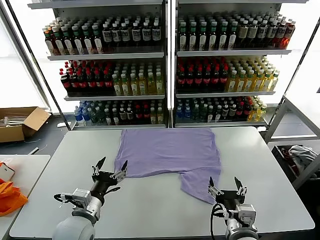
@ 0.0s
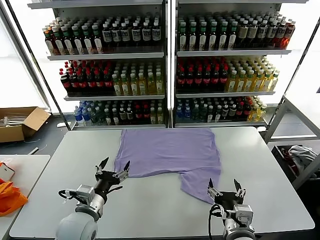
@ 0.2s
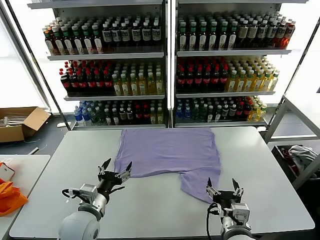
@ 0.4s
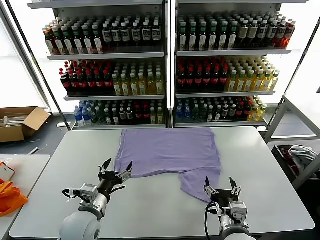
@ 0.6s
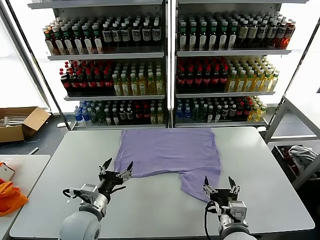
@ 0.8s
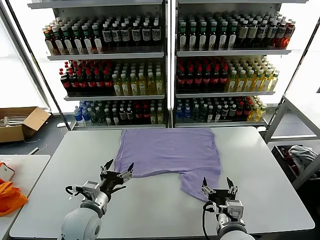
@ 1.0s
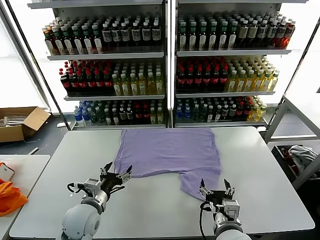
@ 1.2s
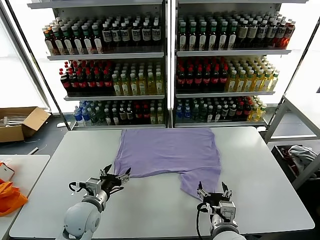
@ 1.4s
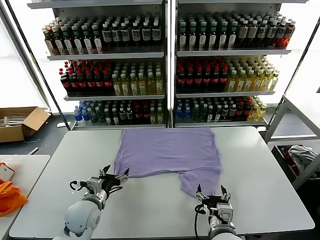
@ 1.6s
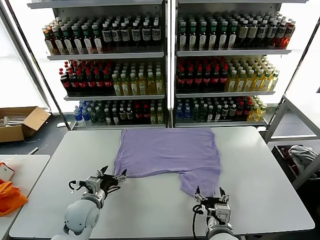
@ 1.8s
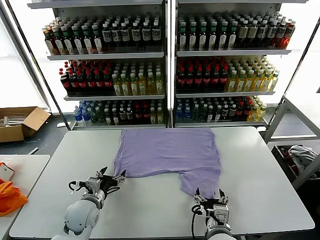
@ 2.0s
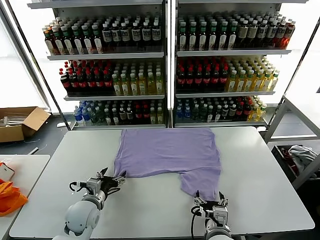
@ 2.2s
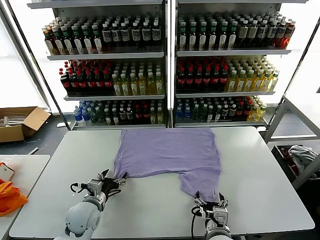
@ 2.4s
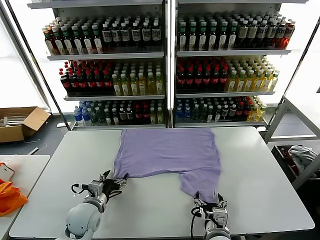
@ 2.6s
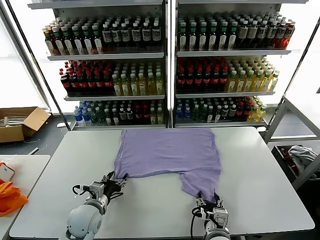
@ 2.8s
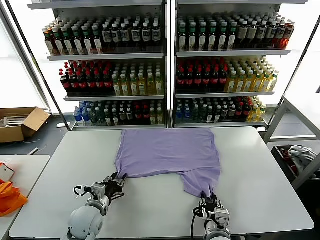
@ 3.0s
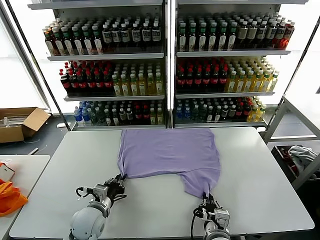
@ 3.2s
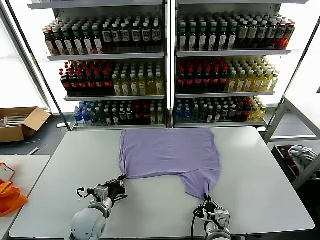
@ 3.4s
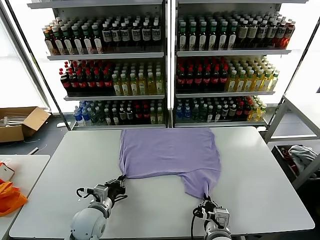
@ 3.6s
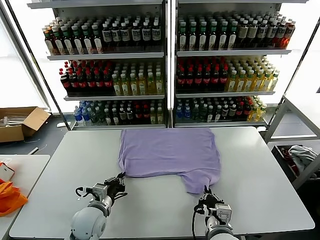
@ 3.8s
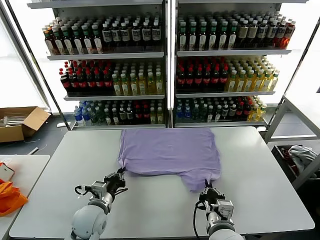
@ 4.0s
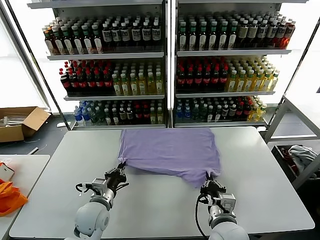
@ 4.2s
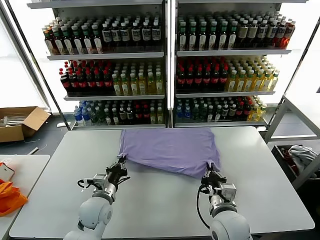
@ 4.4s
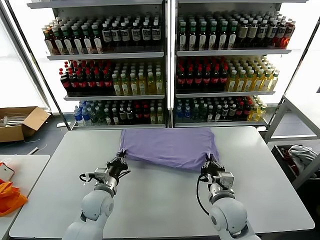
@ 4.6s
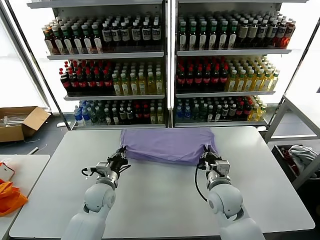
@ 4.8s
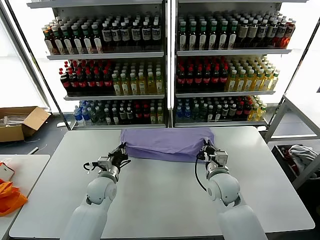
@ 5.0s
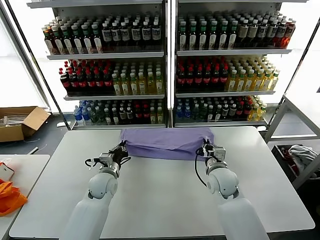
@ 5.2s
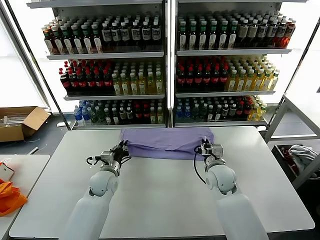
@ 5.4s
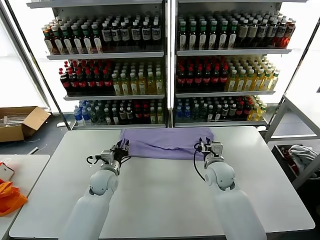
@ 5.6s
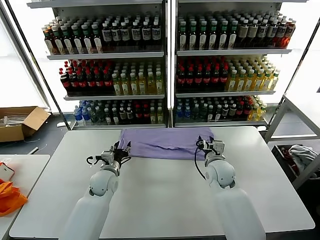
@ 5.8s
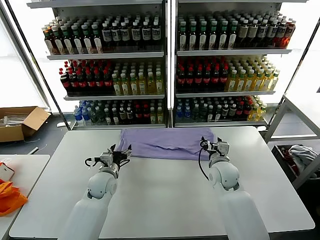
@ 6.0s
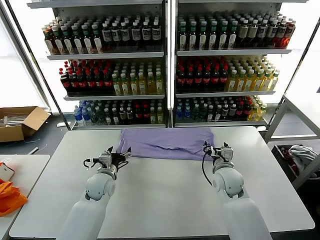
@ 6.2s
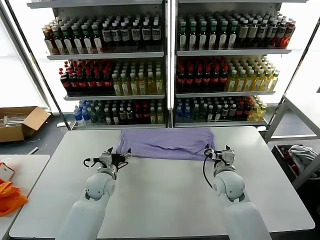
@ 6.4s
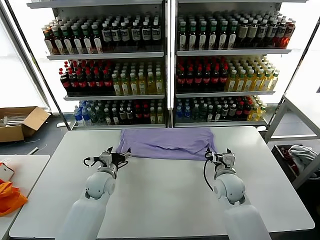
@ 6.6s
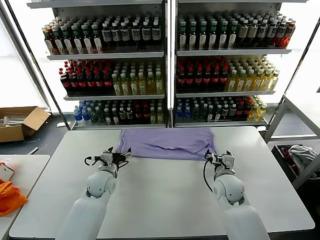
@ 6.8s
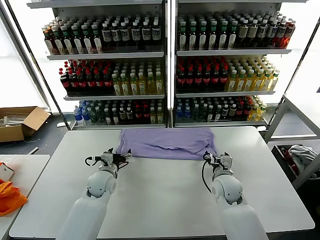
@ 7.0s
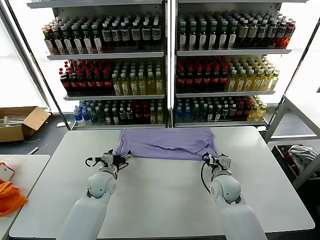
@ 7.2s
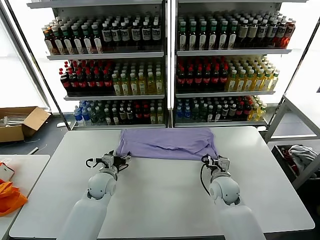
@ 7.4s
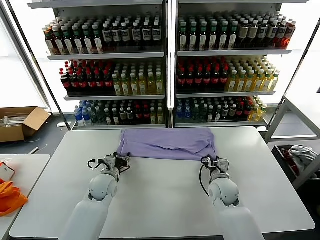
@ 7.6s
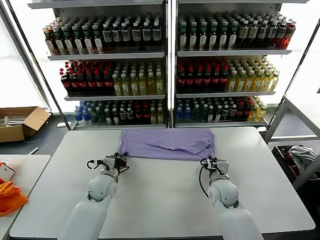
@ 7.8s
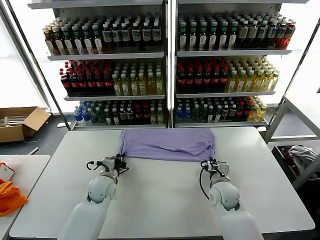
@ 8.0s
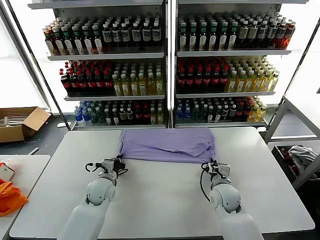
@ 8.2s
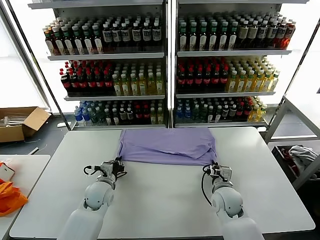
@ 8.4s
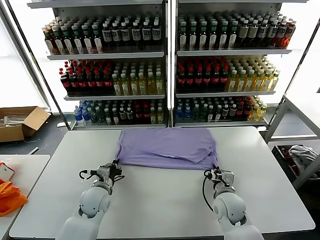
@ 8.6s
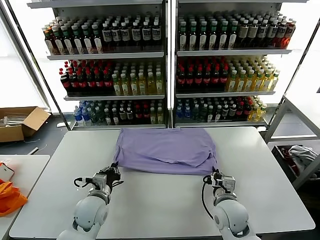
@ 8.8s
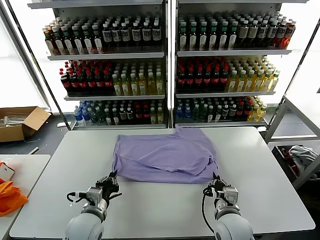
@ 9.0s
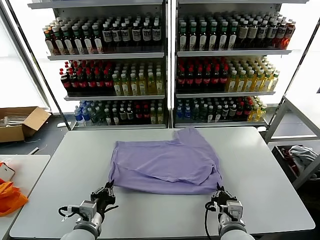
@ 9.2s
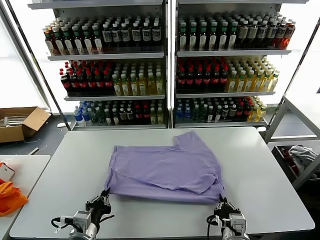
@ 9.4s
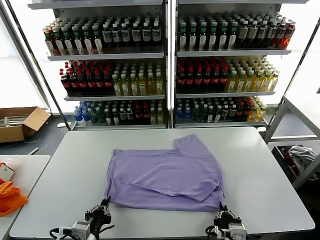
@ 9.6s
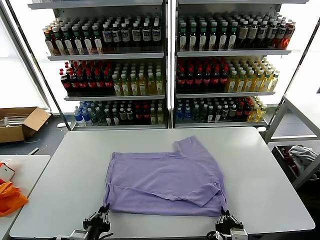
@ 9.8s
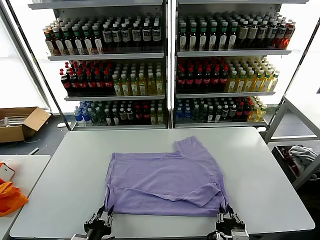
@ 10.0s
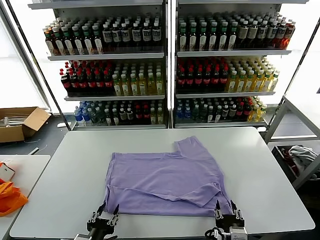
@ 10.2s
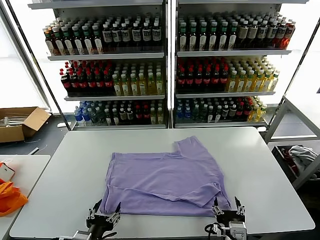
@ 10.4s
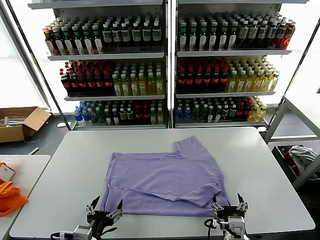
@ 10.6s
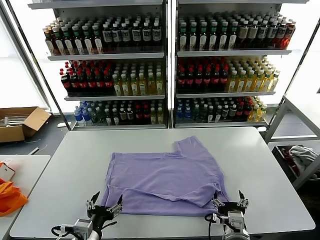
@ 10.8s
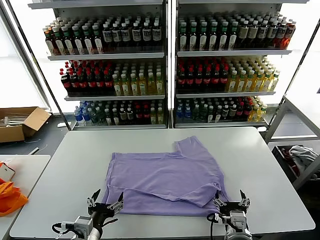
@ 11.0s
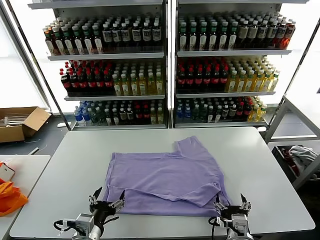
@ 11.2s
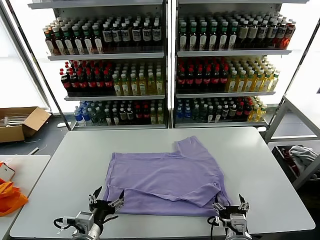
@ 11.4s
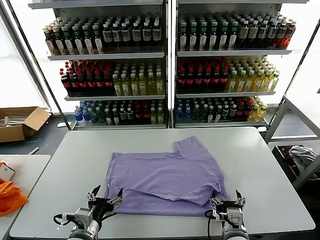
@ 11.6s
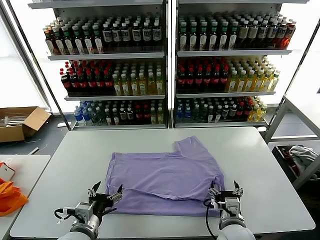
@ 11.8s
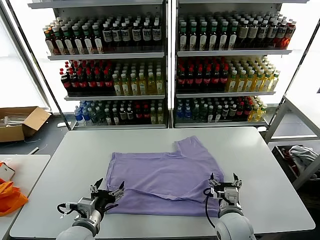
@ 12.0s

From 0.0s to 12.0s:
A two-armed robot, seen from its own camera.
Task of the whole recording: fold and organize the clothes.
Step, from 0.0s to 3.8s: use both grippers simultaneously to clamp the lower edge of the clothing fabric.
Step, from 4.0s to 5.6s: use both grippers to drag the lower edge of the fabric forward and fold it over the upper edge.
Step, from 5.8s to 10.0s: Drag the clothes downward with both gripper.
From 1.6s to 3.0s: The left gripper closes up. Meanwhile the right gripper closes.
From 3.0s to 4.4s: The right gripper moves forward and upward, approximately 10 cm. Meanwhile the left gripper closes up.
From 4.4s to 6.0s: The two grippers go approximately 10 cm forward. The right gripper opens its fingers; the left gripper opens its fingers.
From 6.0s to 7.6s: The right gripper travels downward by about 5 cm, and closes up.
From 7.6s to 9.0s: The grippers both shift backward by about 15 cm. The left gripper closes.
From 9.0s to 10.4s: The right gripper goes approximately 5 cm backward, and opens its fingers. Meanwhile the left gripper shifts some 15 cm backward, and opens.
From 10.4s to 12.0s: Both grippers travel together forward, some 10 cm.

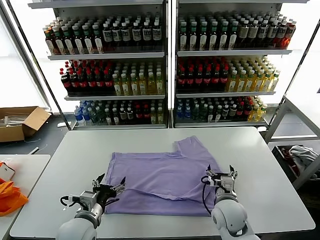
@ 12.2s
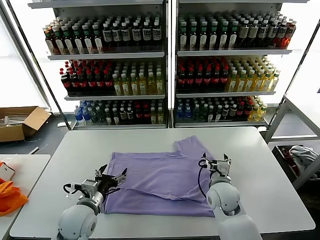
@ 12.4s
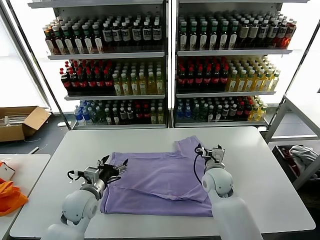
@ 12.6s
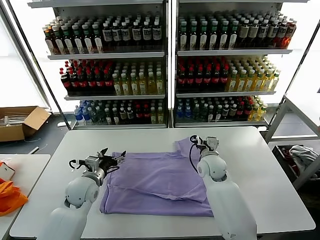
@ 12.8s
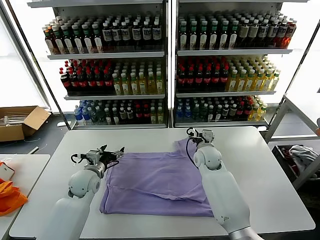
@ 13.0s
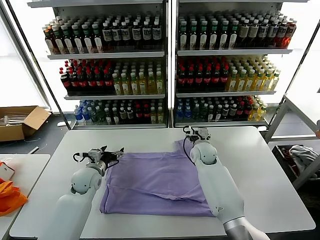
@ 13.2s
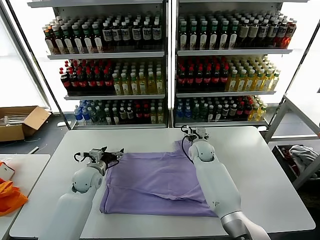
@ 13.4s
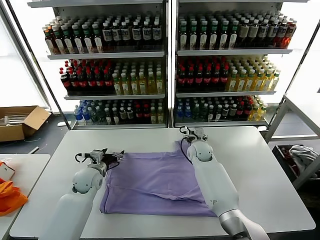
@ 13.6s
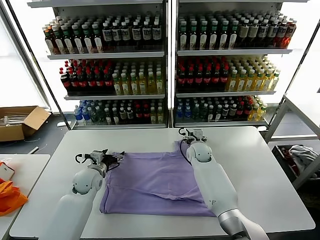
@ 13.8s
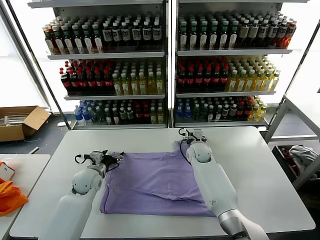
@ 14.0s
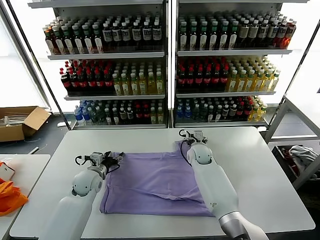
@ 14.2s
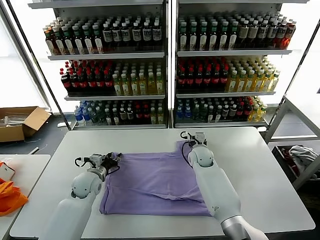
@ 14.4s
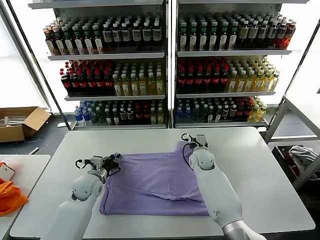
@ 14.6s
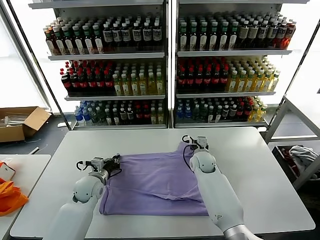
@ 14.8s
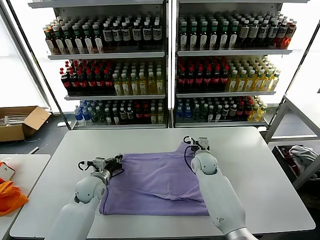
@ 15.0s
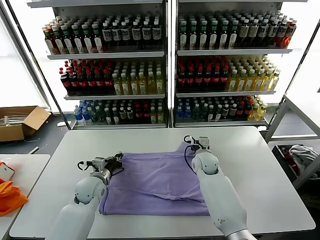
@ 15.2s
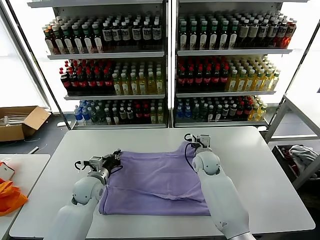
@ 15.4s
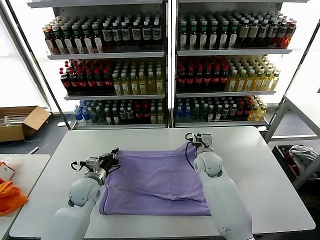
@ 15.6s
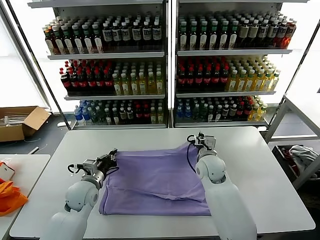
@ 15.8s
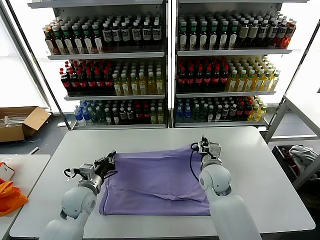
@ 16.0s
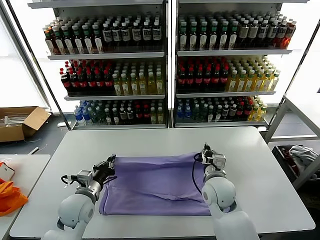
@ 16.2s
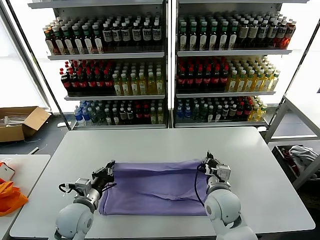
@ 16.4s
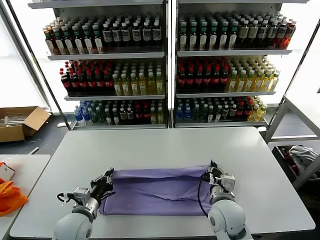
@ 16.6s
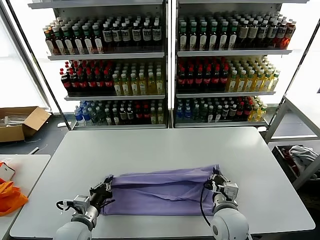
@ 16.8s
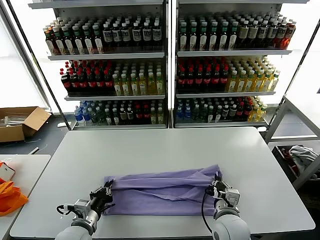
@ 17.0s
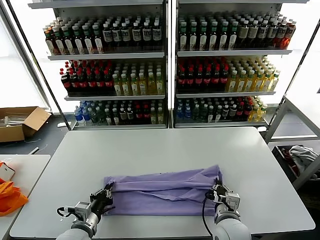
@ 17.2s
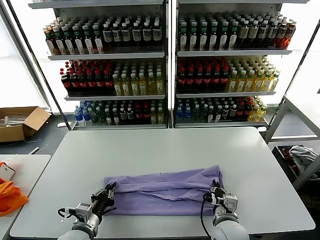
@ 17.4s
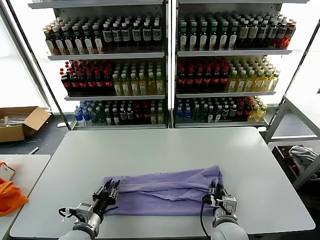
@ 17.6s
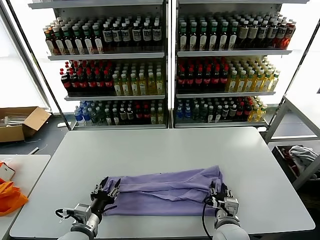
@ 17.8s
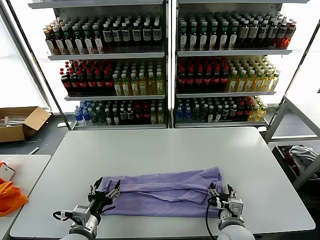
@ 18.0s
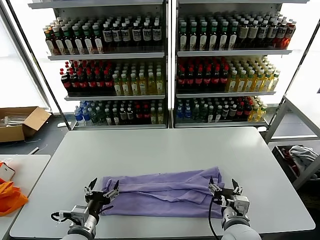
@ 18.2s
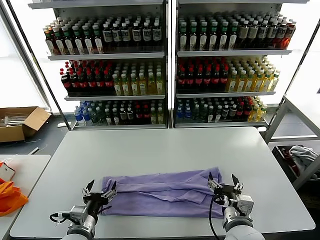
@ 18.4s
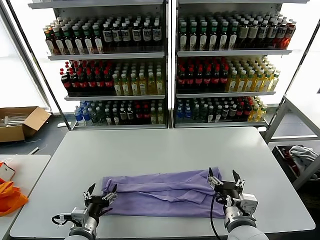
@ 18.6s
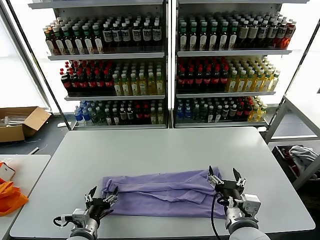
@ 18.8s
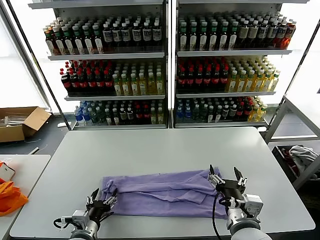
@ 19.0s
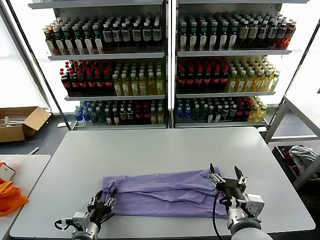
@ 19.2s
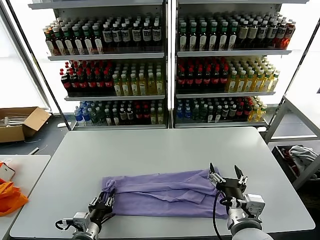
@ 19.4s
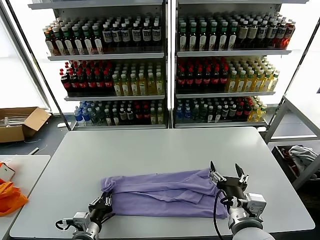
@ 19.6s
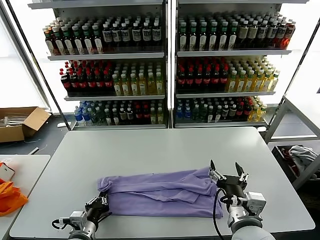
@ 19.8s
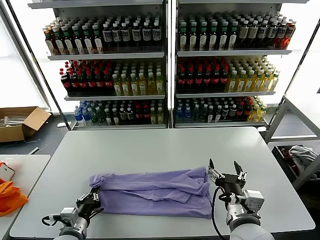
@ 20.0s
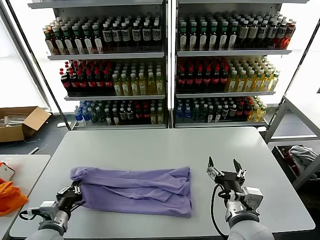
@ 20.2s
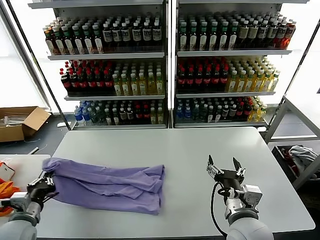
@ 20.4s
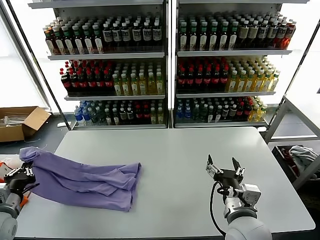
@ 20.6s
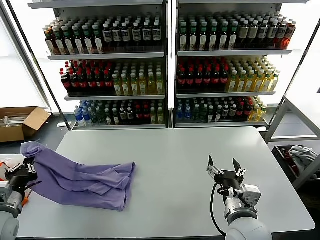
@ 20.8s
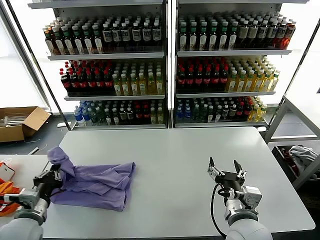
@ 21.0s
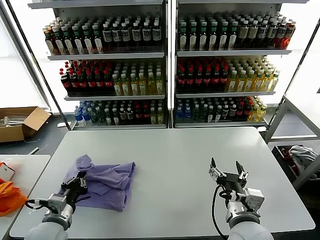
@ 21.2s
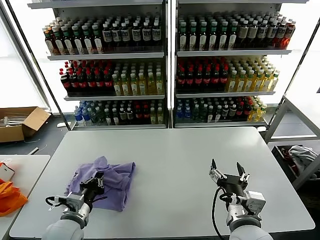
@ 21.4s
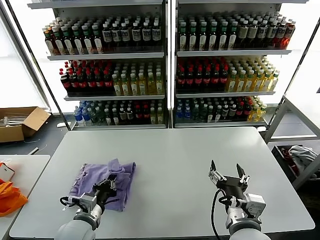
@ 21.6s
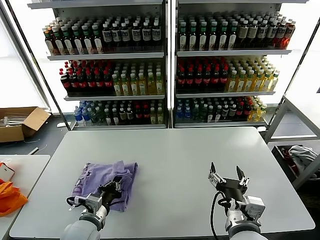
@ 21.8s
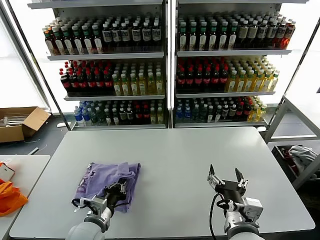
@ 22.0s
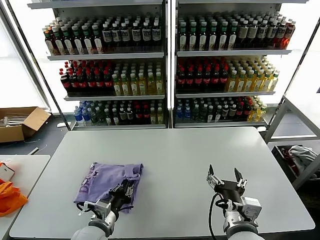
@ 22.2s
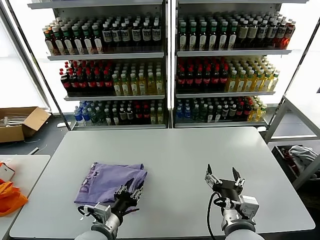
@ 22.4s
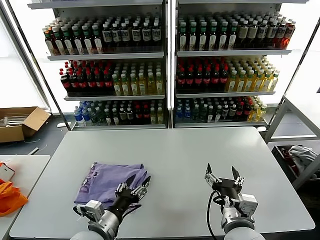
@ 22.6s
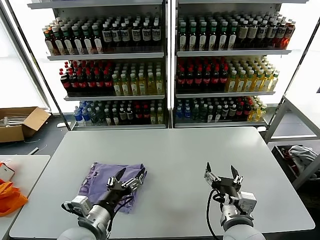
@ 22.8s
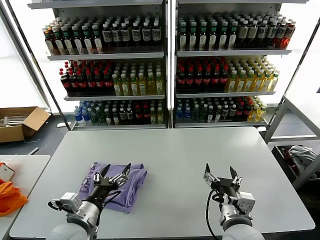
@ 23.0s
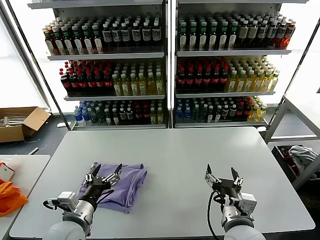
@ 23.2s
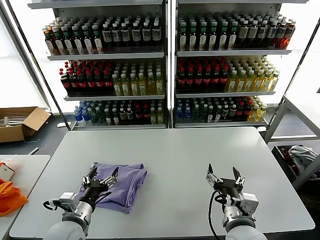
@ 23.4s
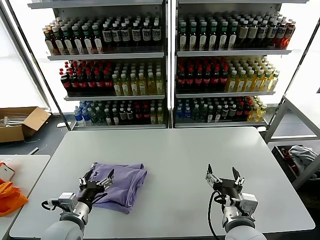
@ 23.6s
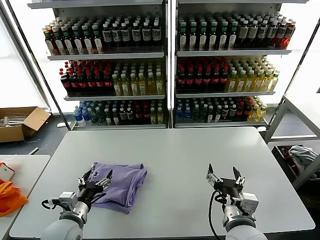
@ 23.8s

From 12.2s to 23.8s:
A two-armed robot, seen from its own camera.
Task of the whole recording: fold and organize the clothes.
Step, from 12.2s to 15.2s: use both grippers simultaneously to clamp the upper edge of the clothing fabric.
Step, from 15.4s to 17.8s: use both grippers to drag the upper edge of the fabric backward and fold it over the lower edge.
Step, from 18.2s to 19.6s: use the left gripper to clamp the left edge of the fabric.
Step, from 19.8s to 22.2s: use the left gripper to drag the left edge of the fabric to the left and folds it over the right edge.
From 12.2s to 13.6s: The grippers both shift forward by some 20 cm.
From 13.6s to 15.0s: The right gripper changes place by roughly 5 cm, and closes up; the left gripper closes its fingers.
From 15.0s to 16.6s: The left gripper travels backward by roughly 15 cm; the right gripper goes roughly 20 cm backward.
From 16.6s to 18.0s: The two grippers go roughly 5 cm backward. The left gripper opens up. Meanwhile the right gripper opens up.
From 18.0s to 19.4s: The right gripper is displaced upward by approximately 10 cm.
From 19.4s to 21.0s: The left gripper goes roughly 15 cm to the left and upward, and closes up.
From 21.0s to 22.4s: The left gripper goes some 20 cm to the right, and opens.
From 22.4s to 23.8s: The left gripper goes approximately 10 cm to the left, and opens up.
